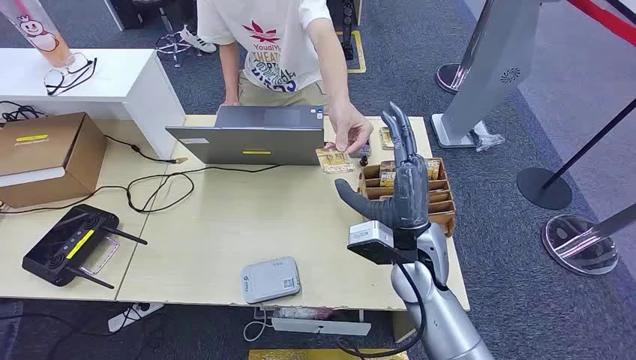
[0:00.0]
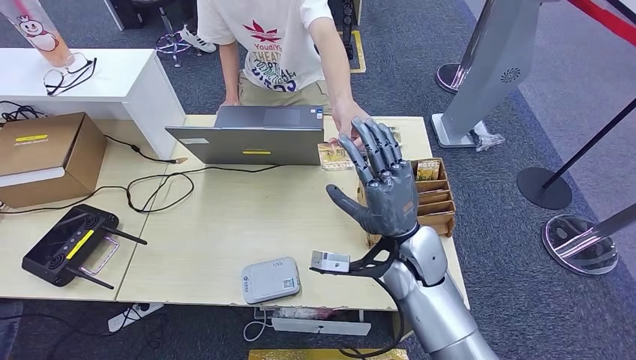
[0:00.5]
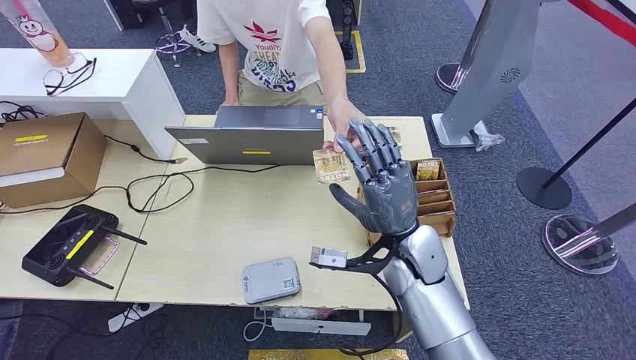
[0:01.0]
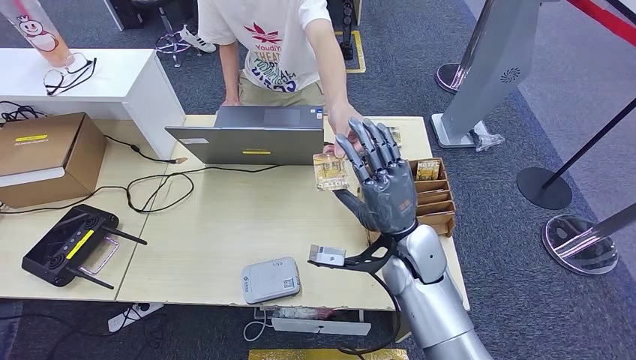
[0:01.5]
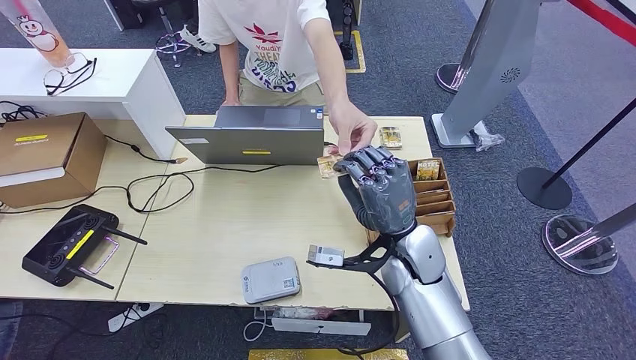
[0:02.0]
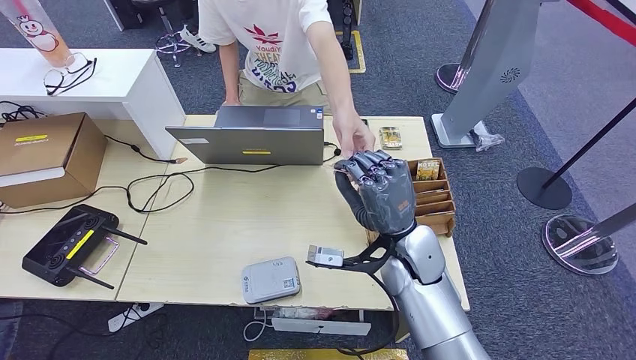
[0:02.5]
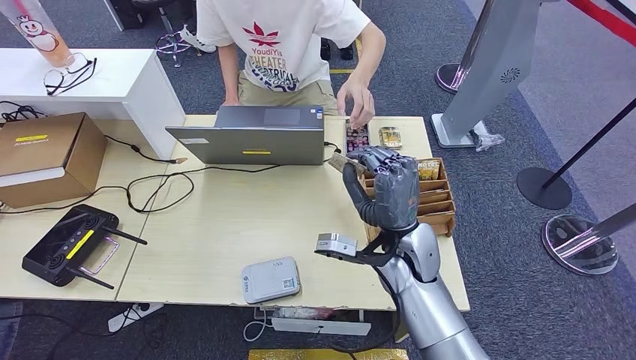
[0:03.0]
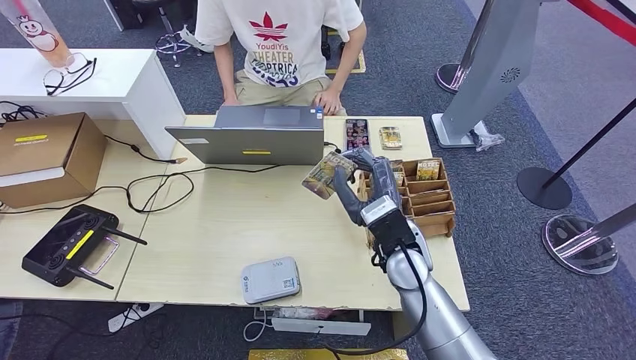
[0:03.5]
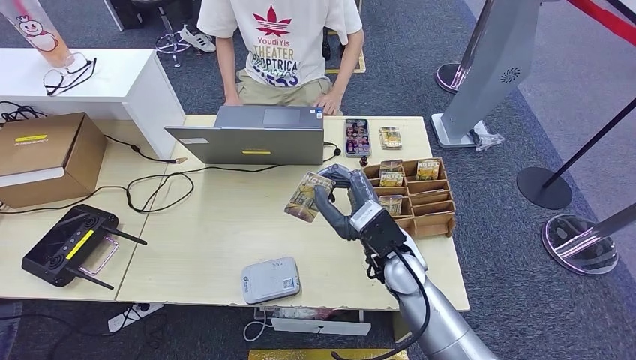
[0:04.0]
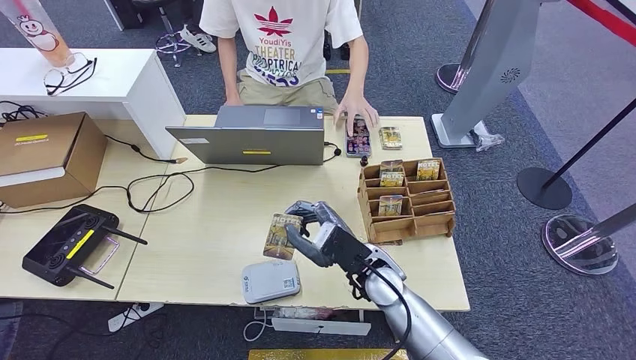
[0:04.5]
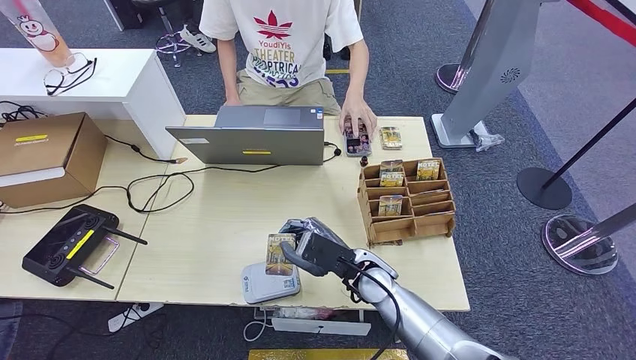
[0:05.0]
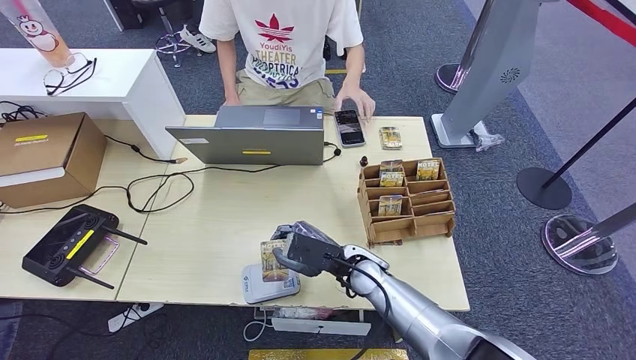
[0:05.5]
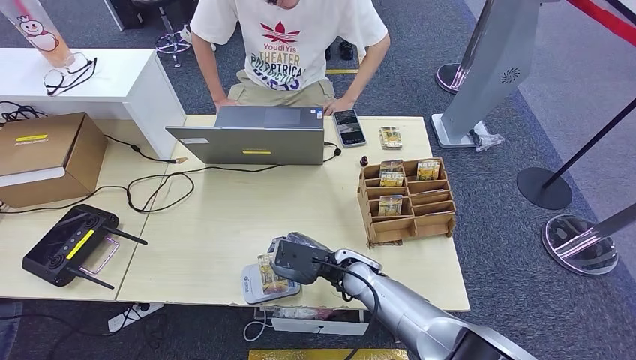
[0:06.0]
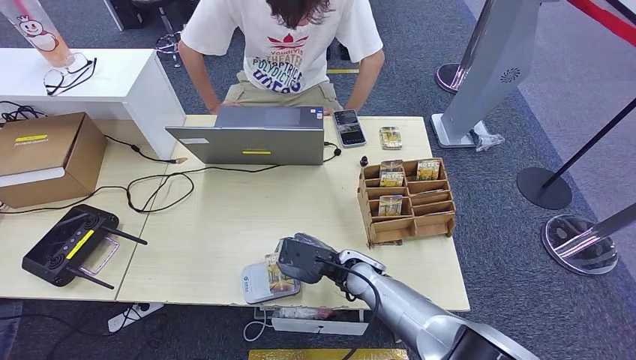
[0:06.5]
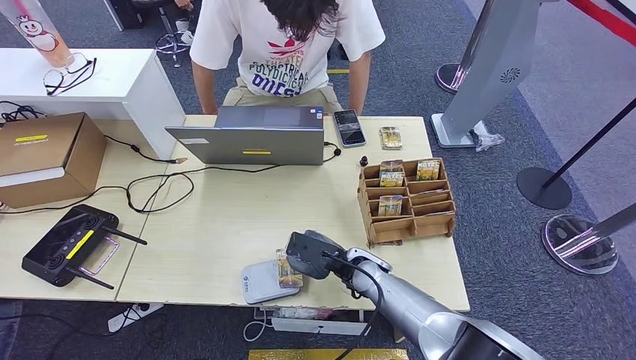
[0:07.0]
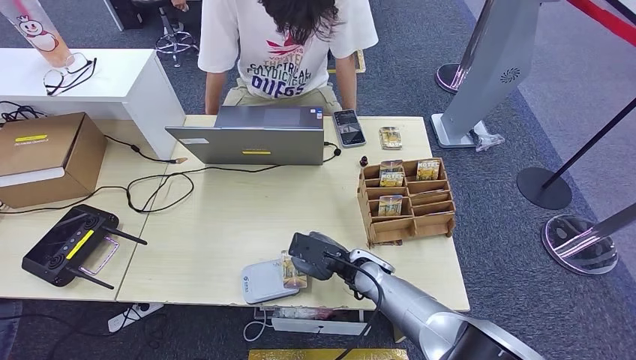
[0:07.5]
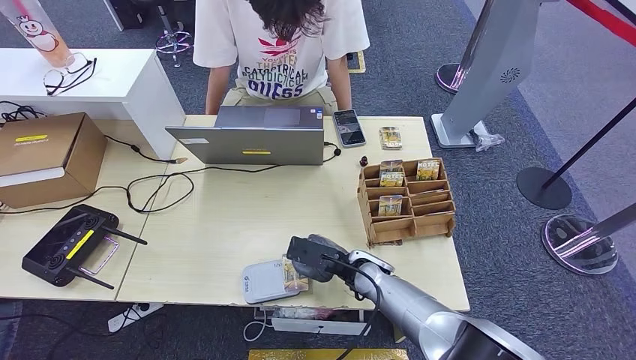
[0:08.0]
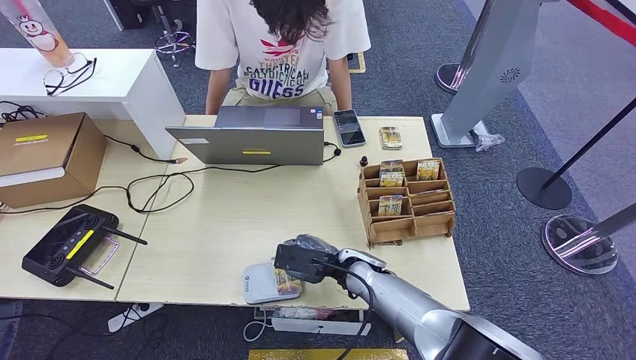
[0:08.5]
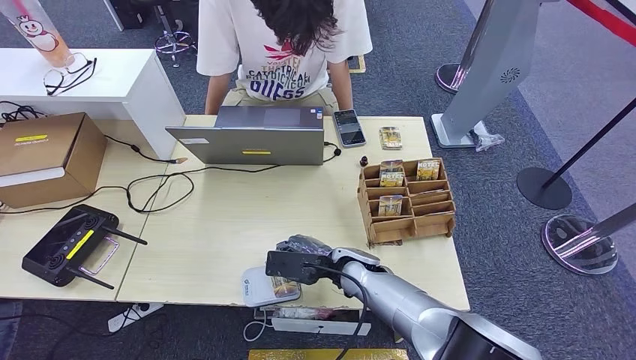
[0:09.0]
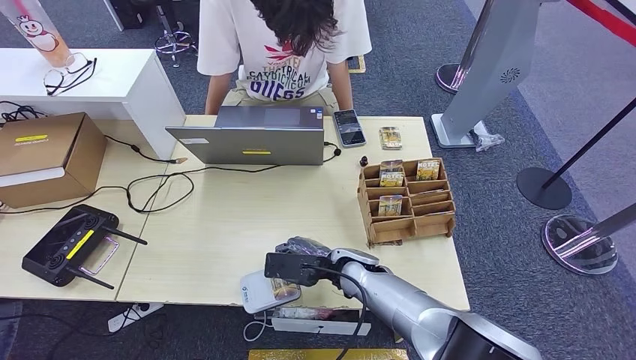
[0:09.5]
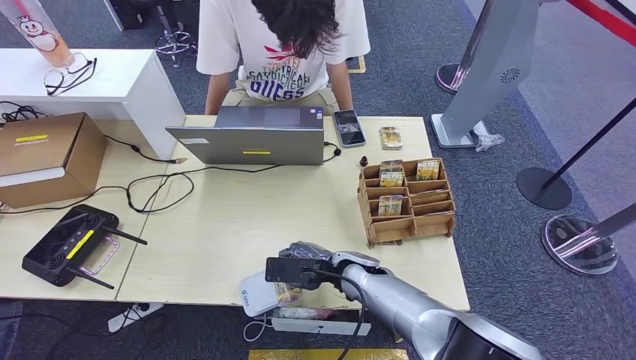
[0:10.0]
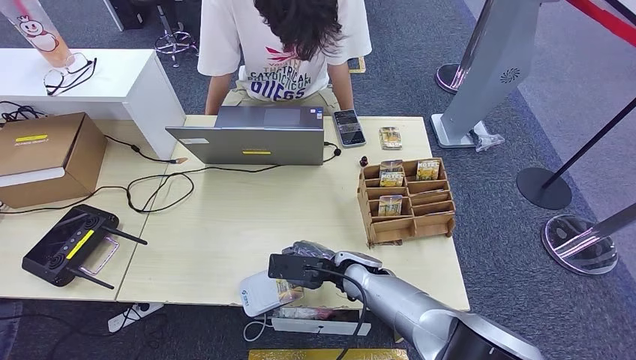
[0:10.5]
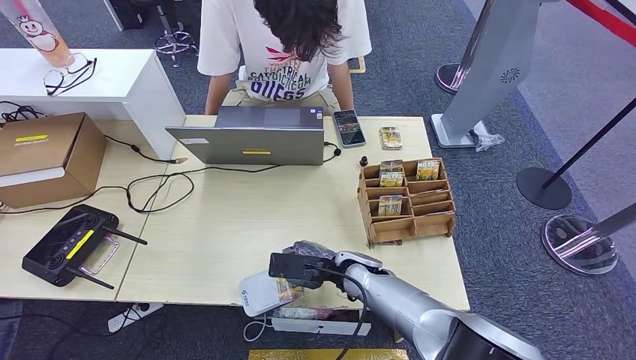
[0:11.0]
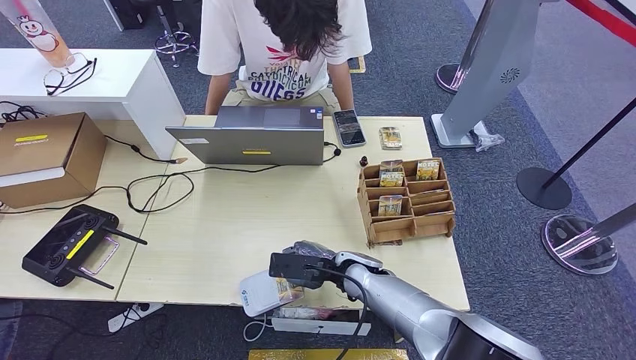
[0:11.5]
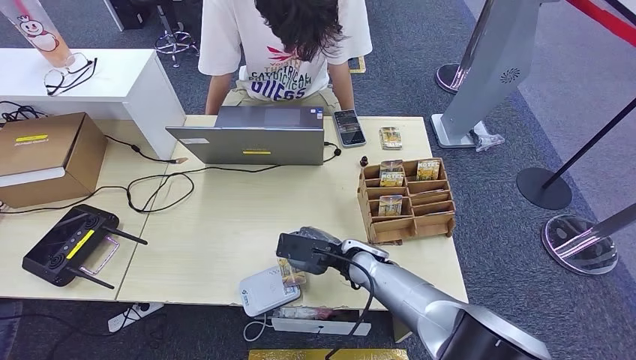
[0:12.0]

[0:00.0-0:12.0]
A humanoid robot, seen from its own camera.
Step, 0:00.0 to 0:03.0: Take the ID card from the person's hand.
Step, 0:03.5 to 0:08.5: Place the ID card on the card reader.
0:04.0 to 0:06.0: The right hand is displaced downward by some 10 cm.
0:06.0 to 0:08.0: The hands make only small movements.
0:08.0 to 0:12.0: The hands stay close to where they were, moving slightly.

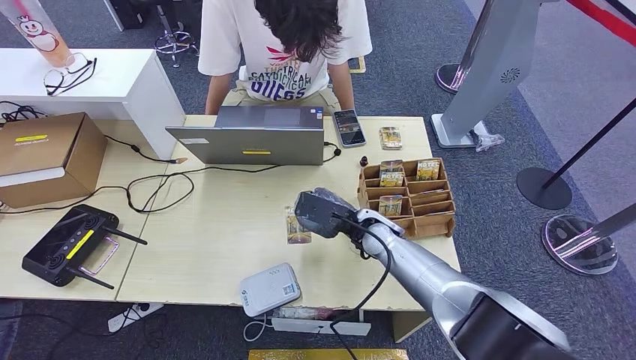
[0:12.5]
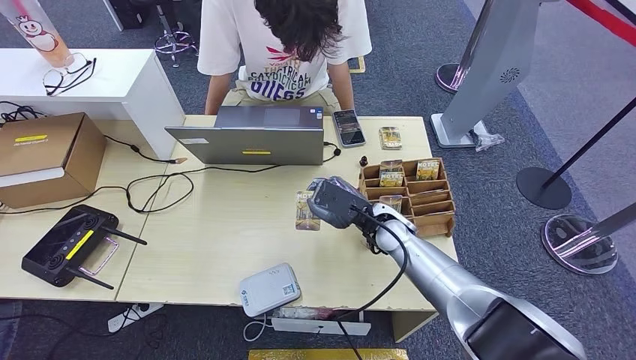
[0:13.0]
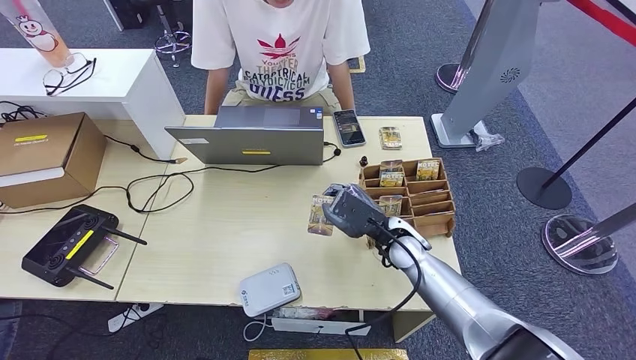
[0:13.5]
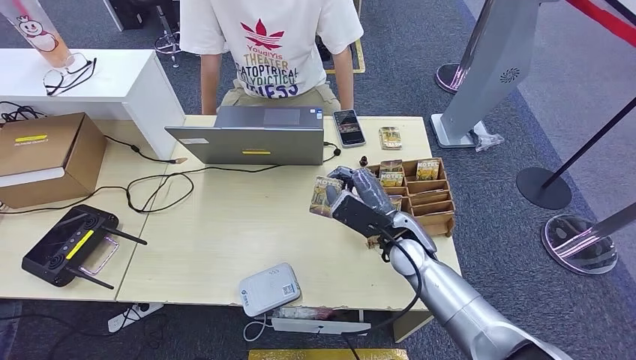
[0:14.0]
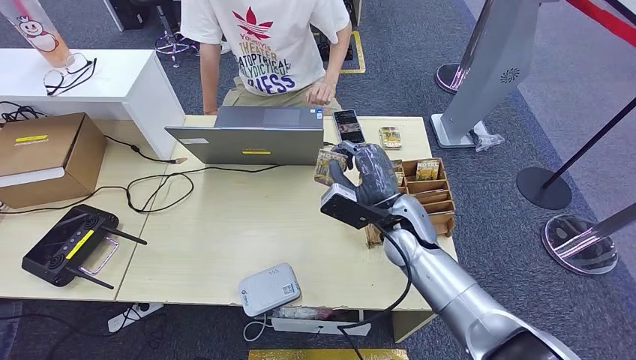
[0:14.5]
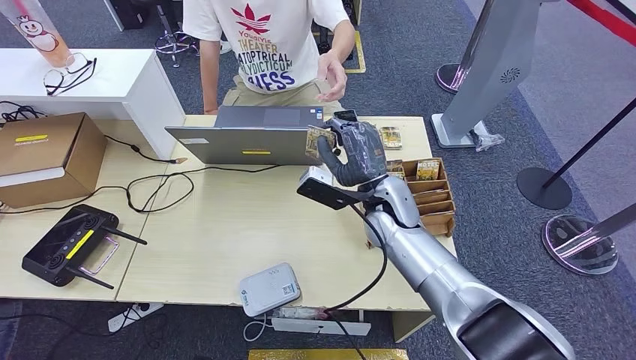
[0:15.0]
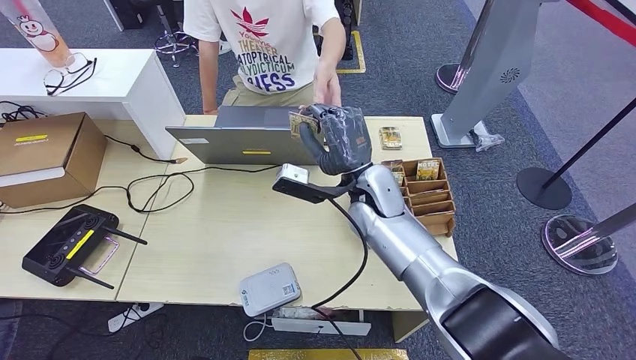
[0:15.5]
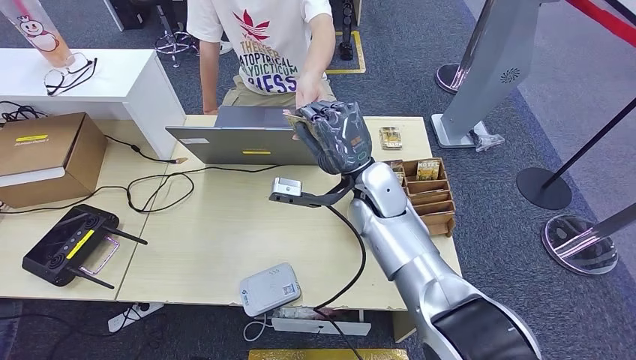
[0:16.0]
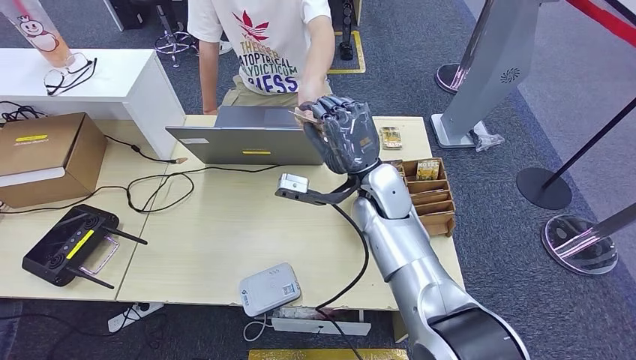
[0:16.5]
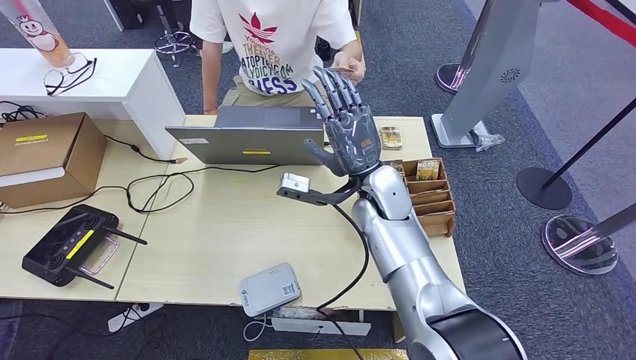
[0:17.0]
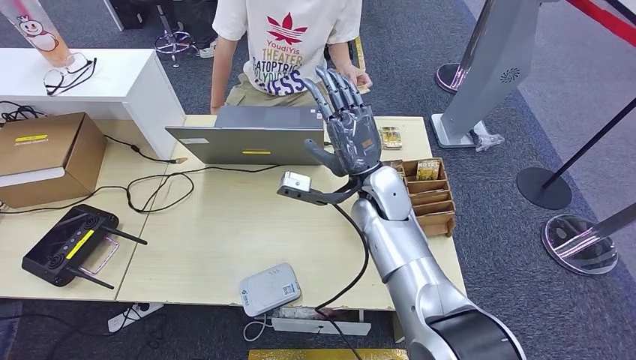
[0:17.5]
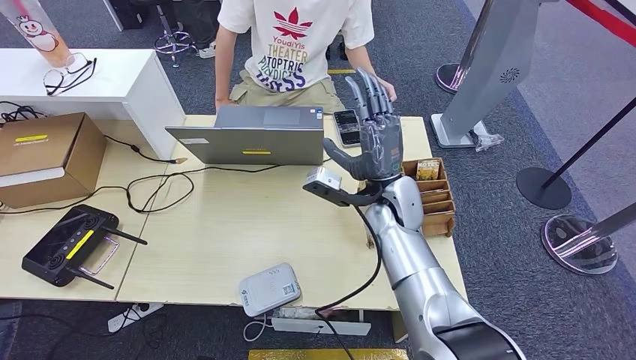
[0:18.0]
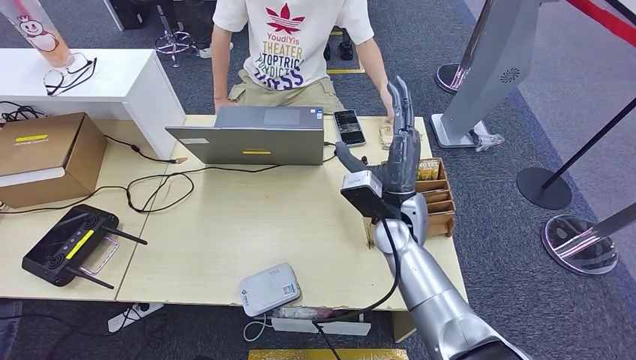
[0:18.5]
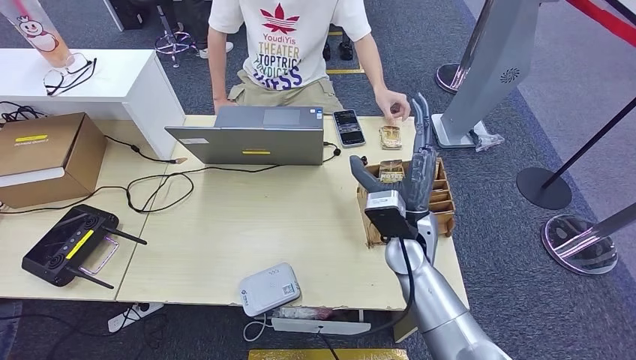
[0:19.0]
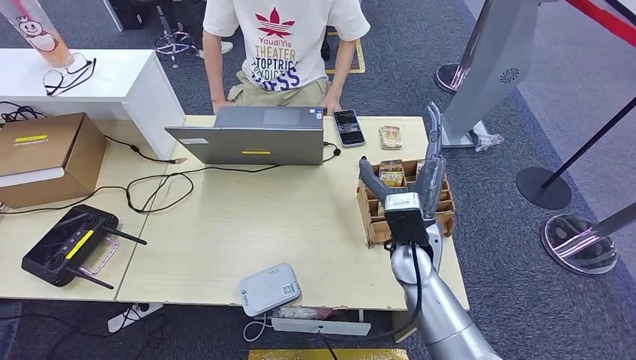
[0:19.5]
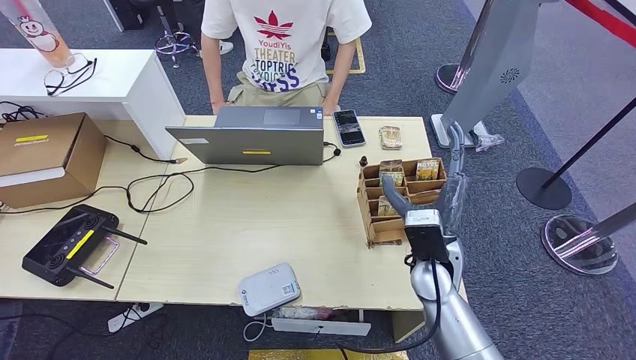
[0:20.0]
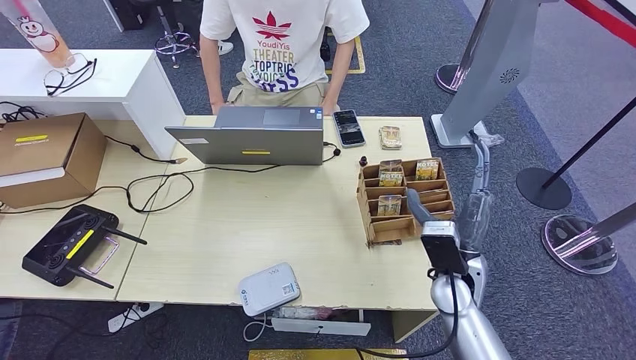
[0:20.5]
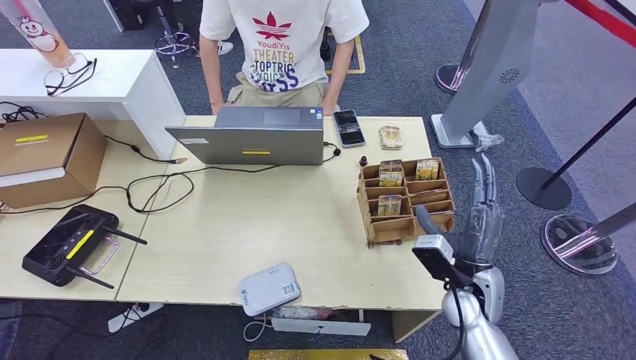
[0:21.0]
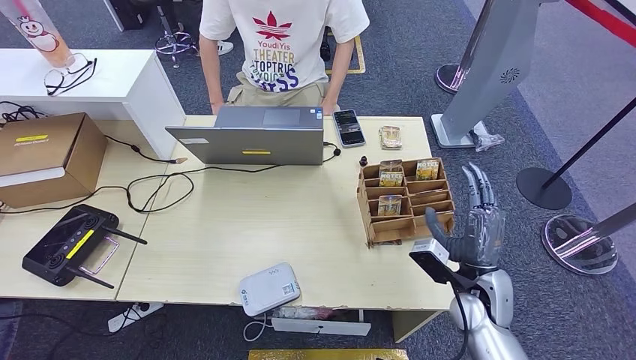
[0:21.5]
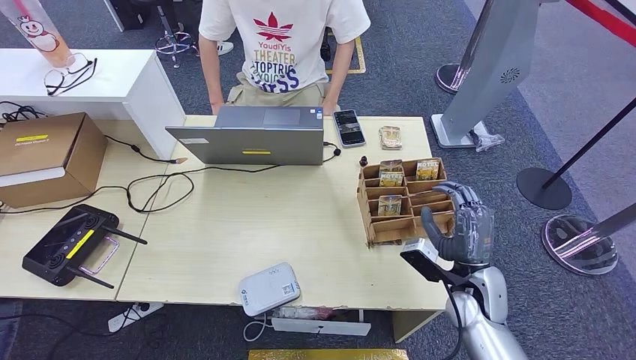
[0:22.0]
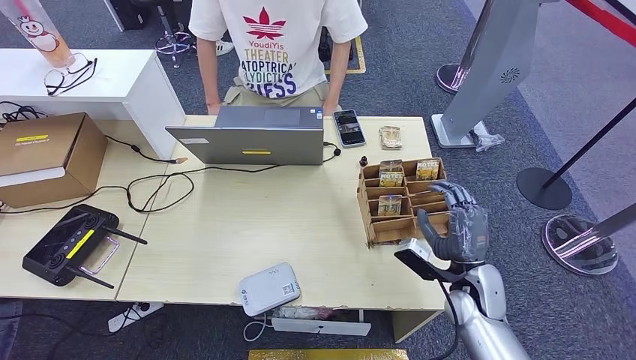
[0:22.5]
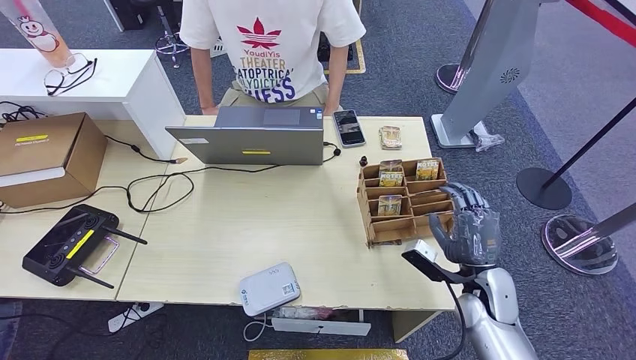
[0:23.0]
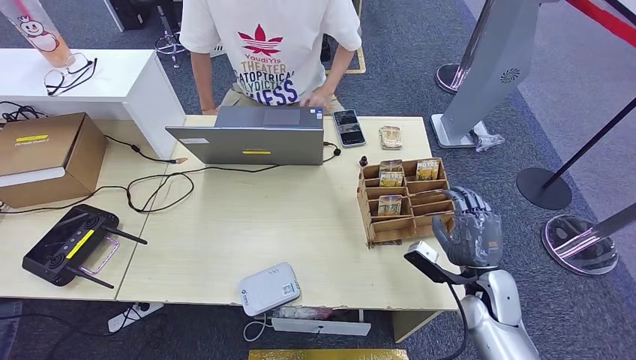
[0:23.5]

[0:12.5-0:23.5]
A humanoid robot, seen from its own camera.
Step, 0:12.5 to 0:17.0: Hand the ID card to the person.
0:12.5 to 0:14.5: The right hand changes place by some 5 cm.
0:14.5 to 0:16.0: The right hand heads to the left and upward, covering approximately 10 cm.
0:16.0 to 0:18.0: The hands stay close to where they were, moving slightly.
0:18.0 to 0:20.0: The right hand heads backward and to the right, covering roughly 10 cm.
0:20.0 to 0:21.5: The right hand is displaced to the right and downward by approximately 10 cm.
0:21.5 to 0:23.5: The hands stay close to where they were, moving slightly.
